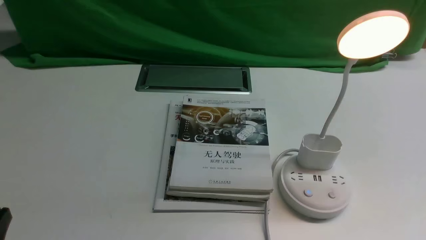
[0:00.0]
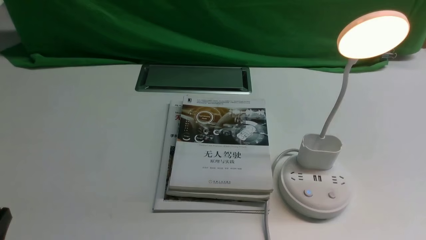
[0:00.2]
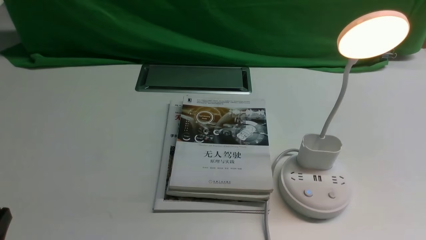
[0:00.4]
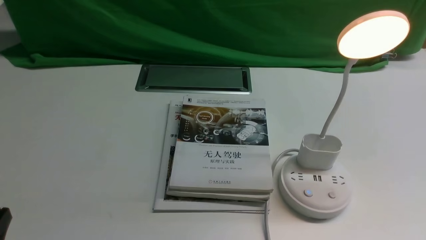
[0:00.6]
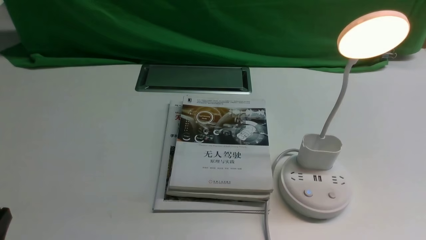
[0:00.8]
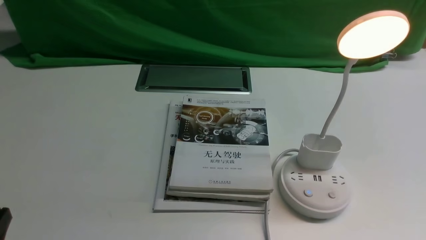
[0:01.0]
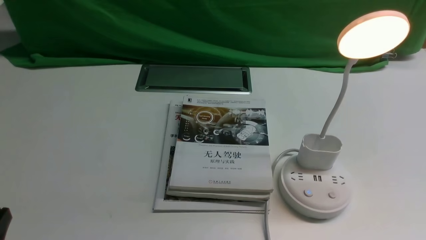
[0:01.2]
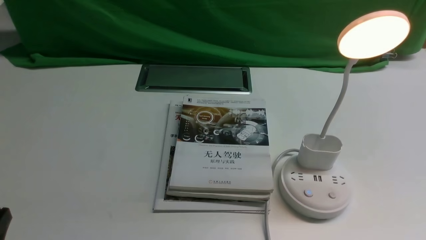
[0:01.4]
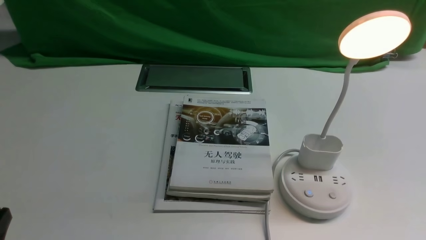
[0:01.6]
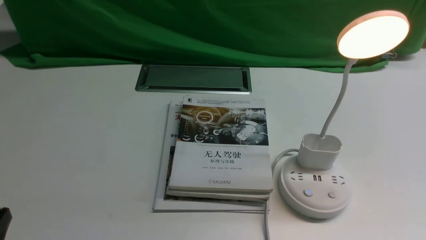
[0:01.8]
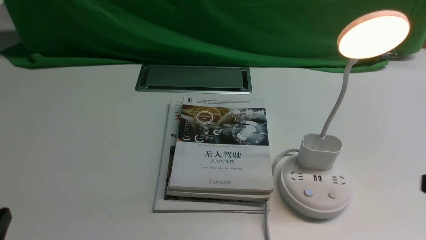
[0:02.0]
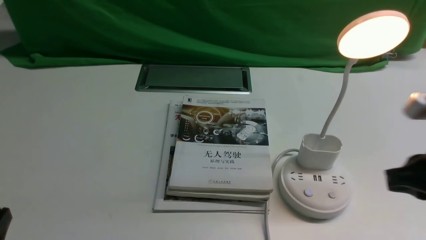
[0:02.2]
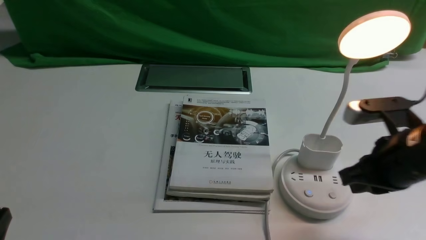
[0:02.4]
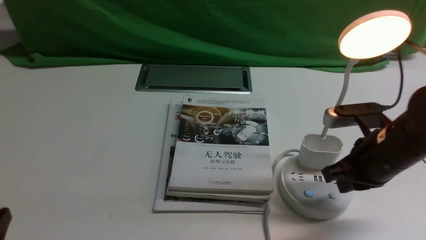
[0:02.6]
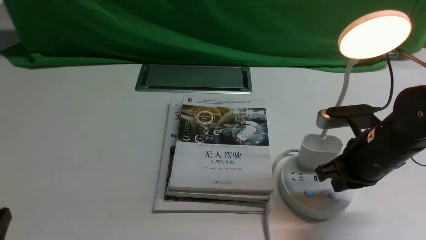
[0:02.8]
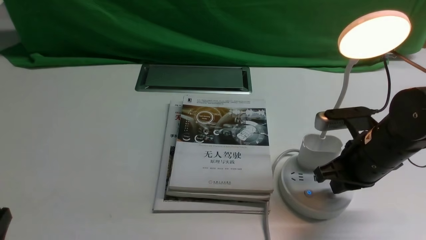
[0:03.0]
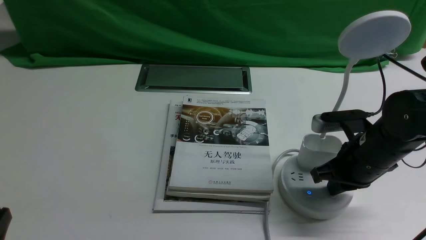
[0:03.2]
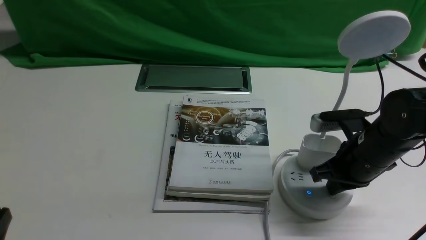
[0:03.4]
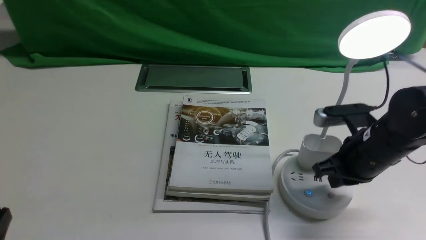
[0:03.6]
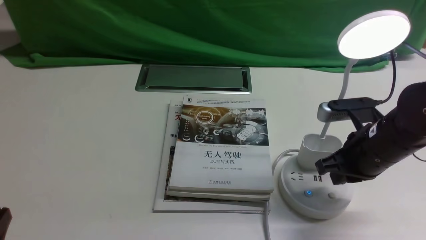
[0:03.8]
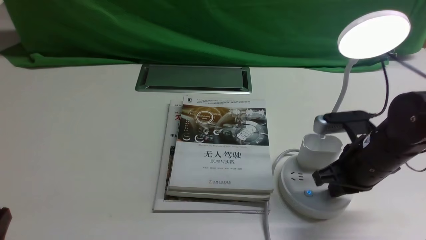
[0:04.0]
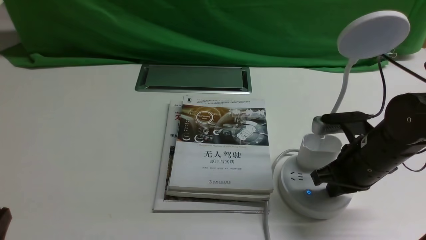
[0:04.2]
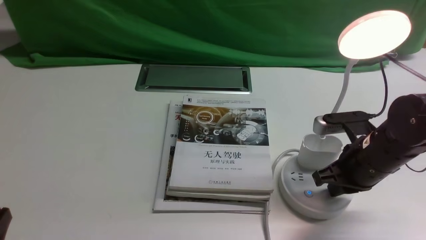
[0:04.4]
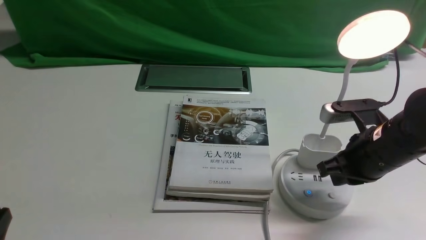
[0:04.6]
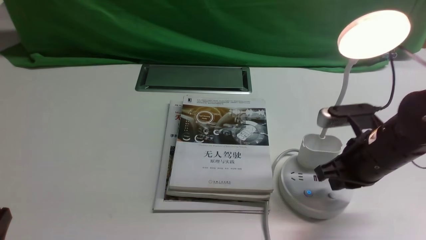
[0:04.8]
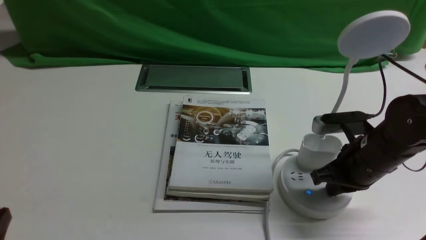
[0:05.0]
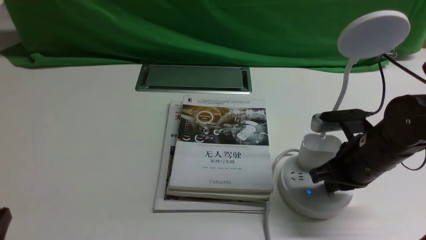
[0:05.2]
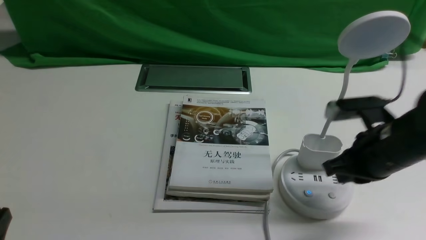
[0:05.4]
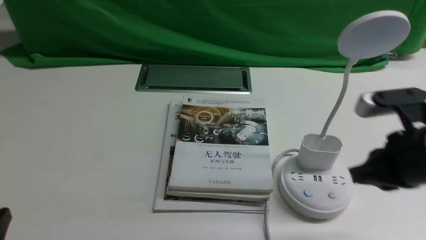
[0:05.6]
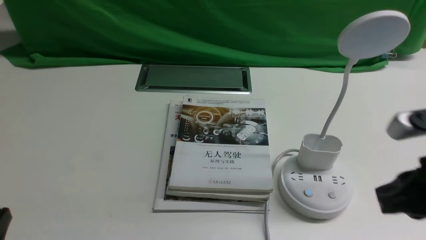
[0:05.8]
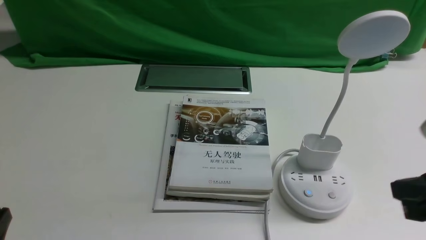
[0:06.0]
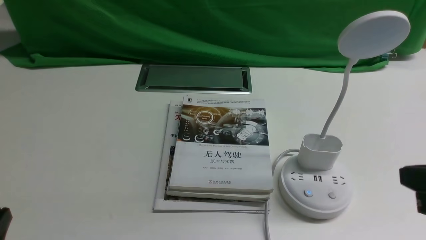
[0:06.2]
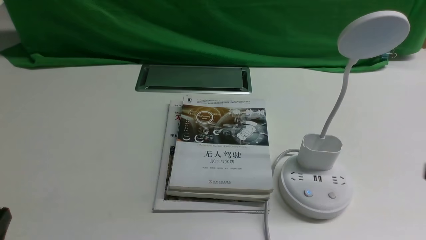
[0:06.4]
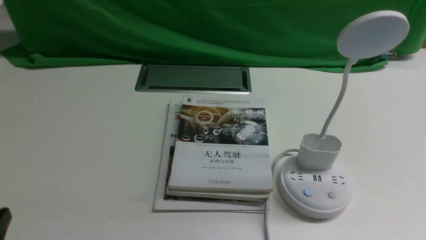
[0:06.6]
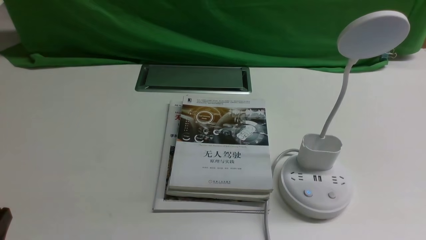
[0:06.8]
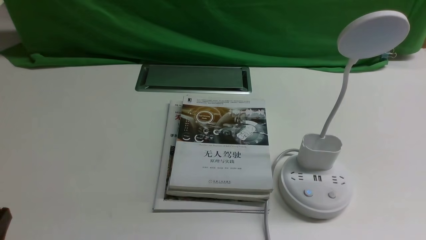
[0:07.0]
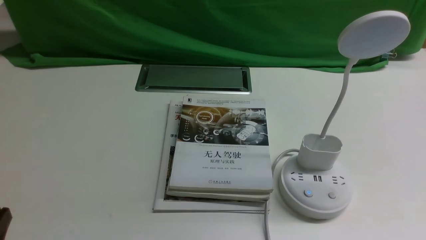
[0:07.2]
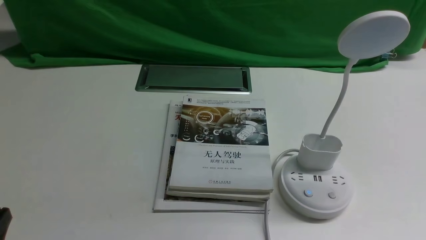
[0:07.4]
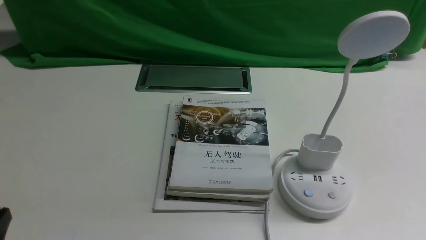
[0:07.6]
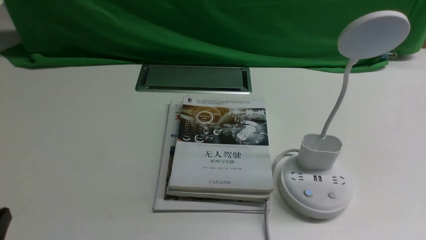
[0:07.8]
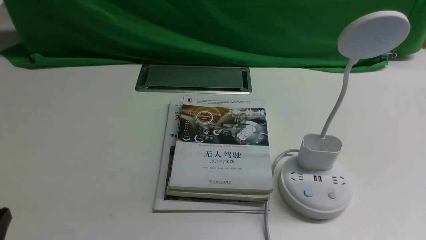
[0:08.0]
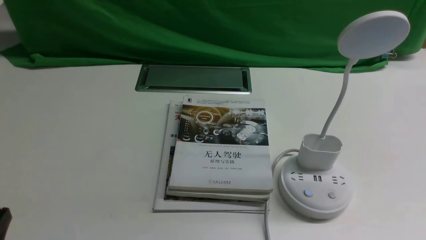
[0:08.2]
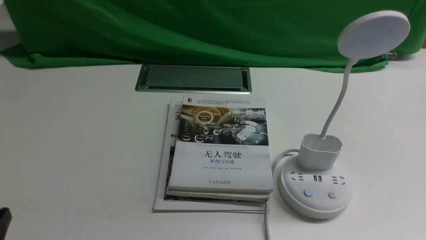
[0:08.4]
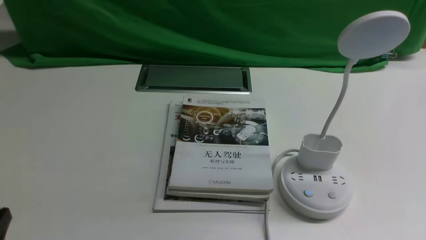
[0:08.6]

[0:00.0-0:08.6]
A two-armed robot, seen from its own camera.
Task of the whole recording: turn off the desk lamp on the white desktop by hand.
Step, 0:00.0 to 0:05.2: use the right arm to press the button switch on the lamp holder.
0:01.4 to 0:02.8: The right gripper heads forward and to the left, covering some 25 cm.
0:02.8 to 0:04.4: The right gripper closes its fingers.
0:04.4 to 0:05.8: The right gripper shifts some 15 cm backward and upward.
0:05.8 to 0:07.2: The right gripper is displaced backward, downward and to the right by about 15 cm.
